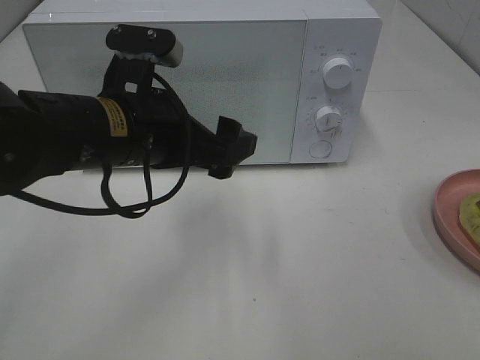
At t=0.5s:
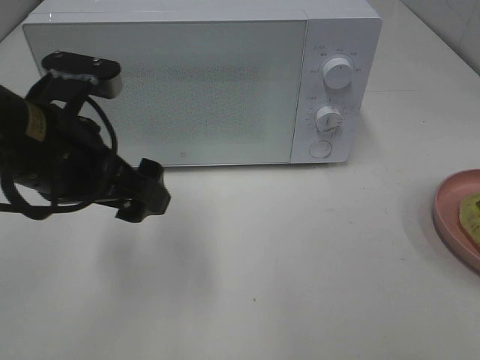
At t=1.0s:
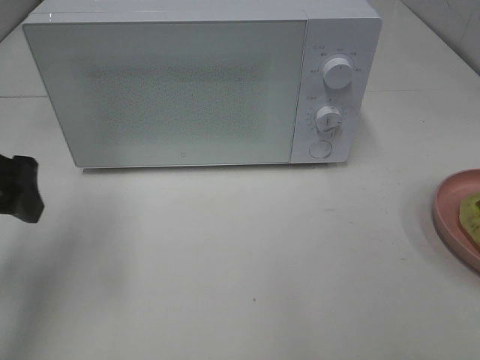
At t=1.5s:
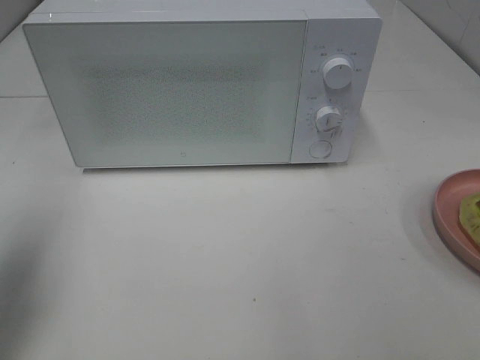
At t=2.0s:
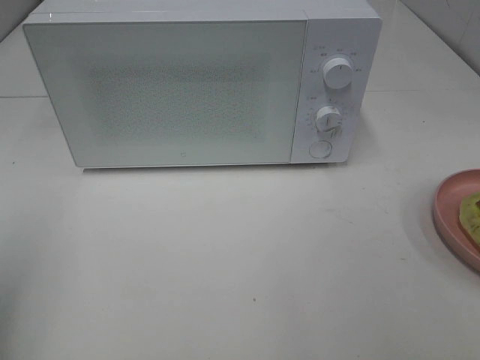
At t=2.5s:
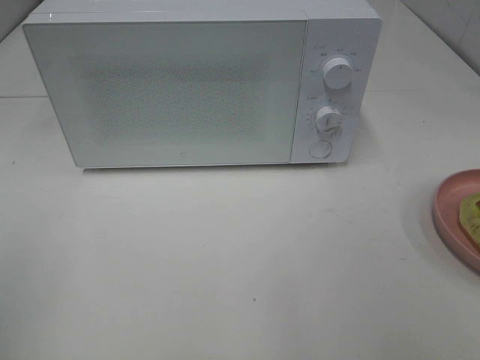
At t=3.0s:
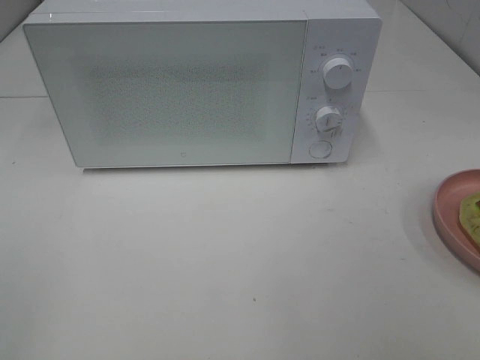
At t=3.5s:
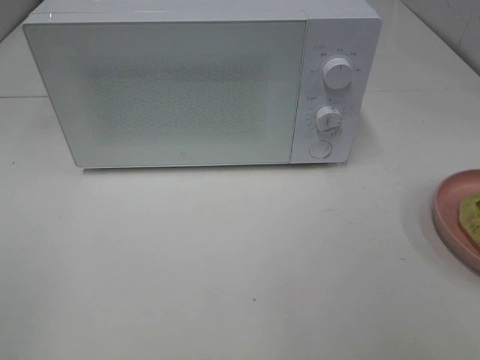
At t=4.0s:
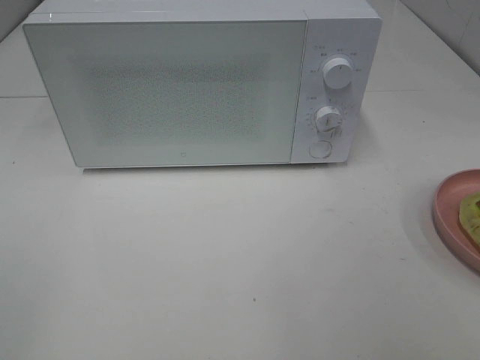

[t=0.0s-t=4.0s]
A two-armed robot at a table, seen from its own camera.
Task of the whole recording: Heat Sandwich.
t=0.0s to t=2.0s: The left gripper travels to the left and backward by about 25 cm.
